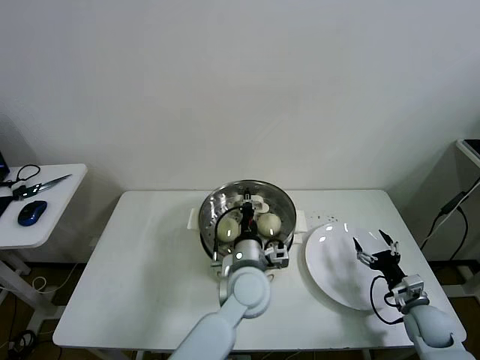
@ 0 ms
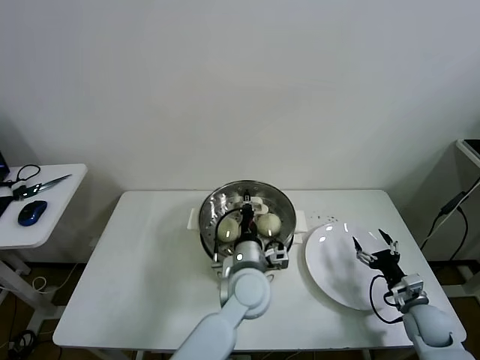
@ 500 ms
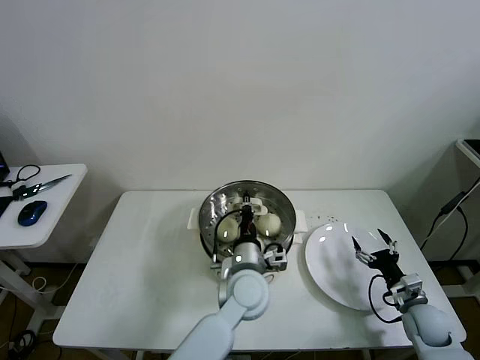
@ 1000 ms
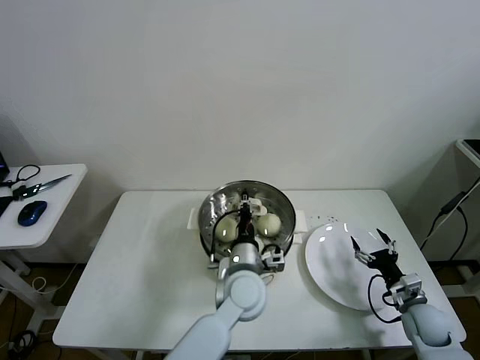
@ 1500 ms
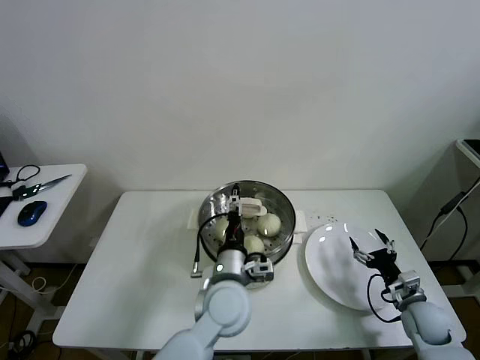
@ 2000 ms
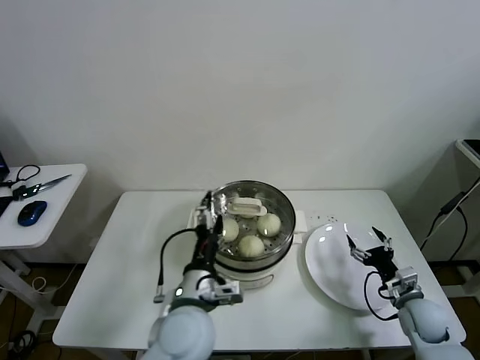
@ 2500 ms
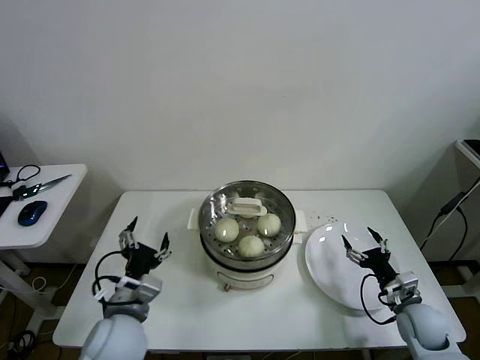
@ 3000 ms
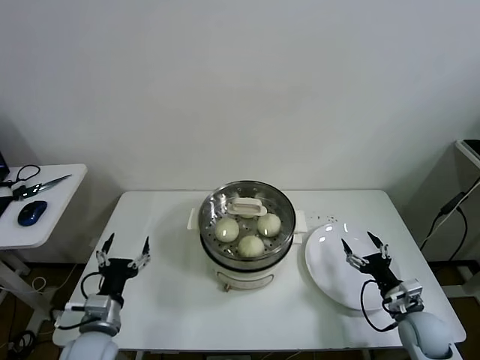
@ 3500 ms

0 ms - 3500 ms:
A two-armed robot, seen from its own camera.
Task of the whole recording: take steamed baozi put them in steamer then cover it.
Step, 0 ms - 2000 ms: Place the pot lid on the steamer with left gripper.
0 ms - 2000 ms: The left gripper opens its fingers.
2000 ms - 3500 ms: The left gripper shifts approximately 25 cm to the left.
